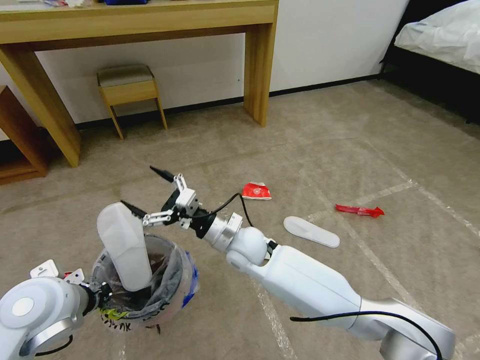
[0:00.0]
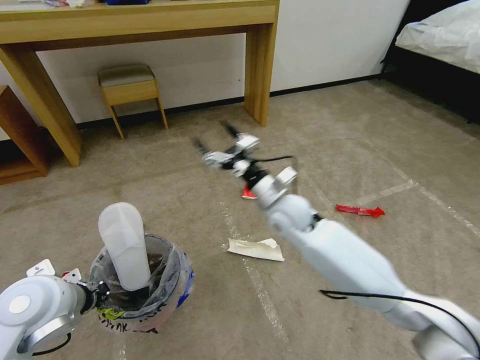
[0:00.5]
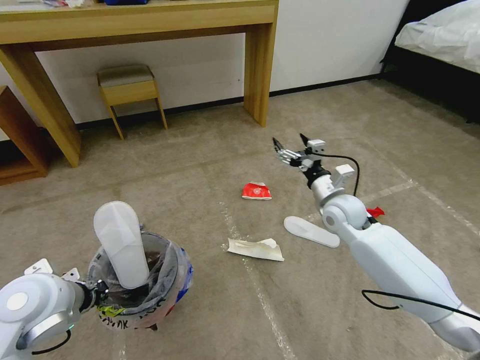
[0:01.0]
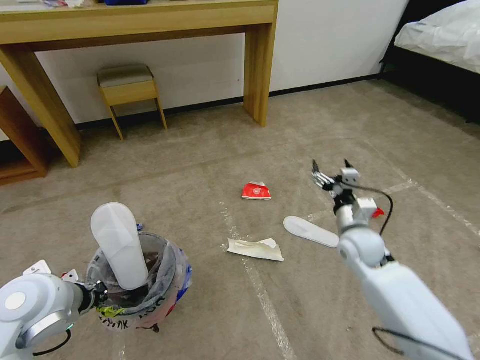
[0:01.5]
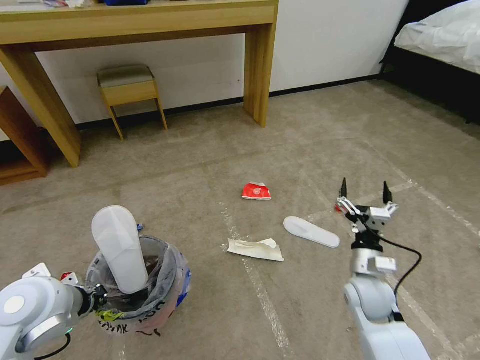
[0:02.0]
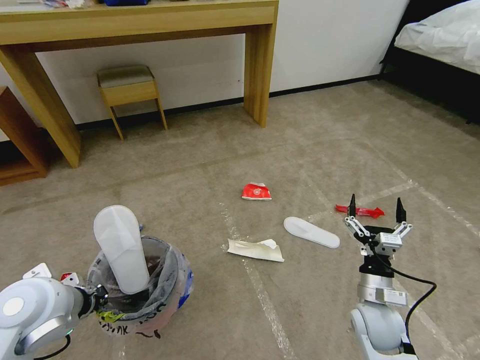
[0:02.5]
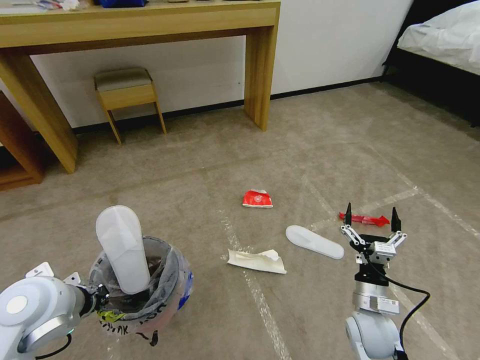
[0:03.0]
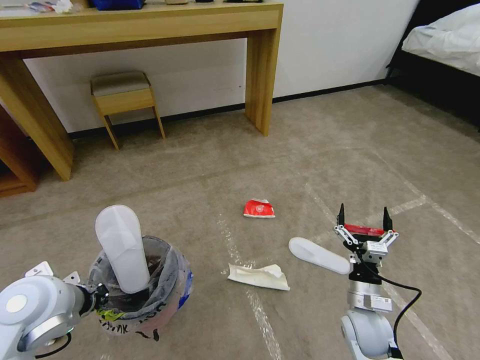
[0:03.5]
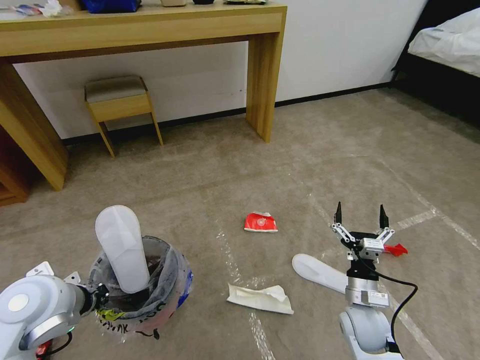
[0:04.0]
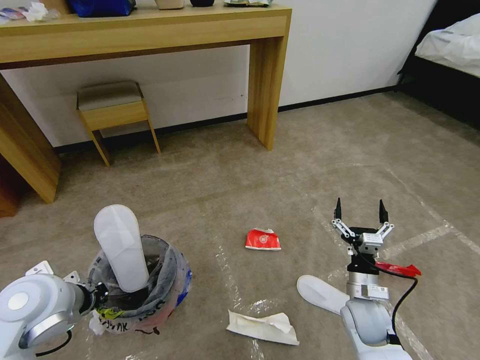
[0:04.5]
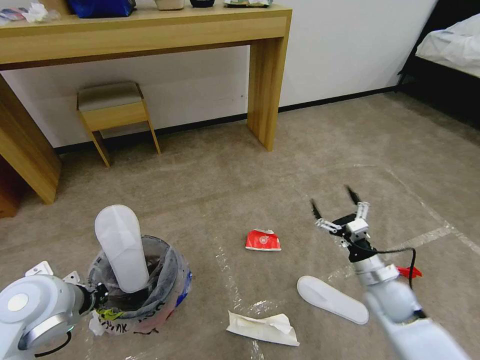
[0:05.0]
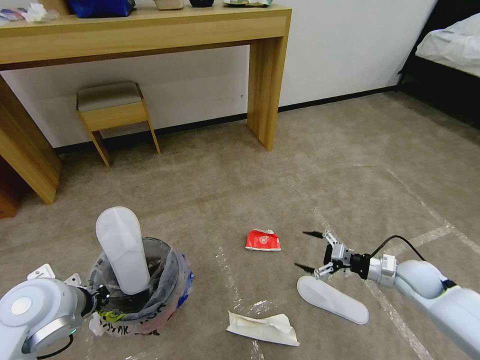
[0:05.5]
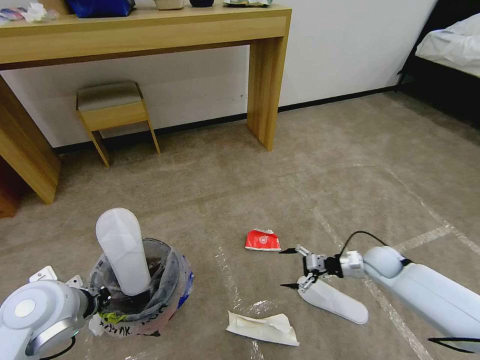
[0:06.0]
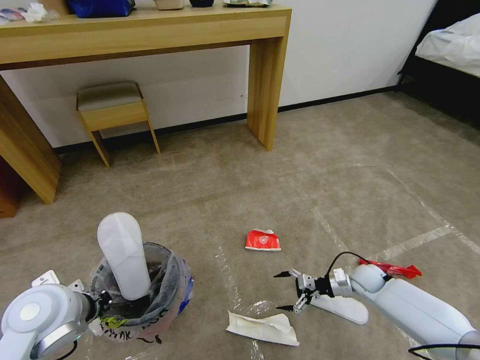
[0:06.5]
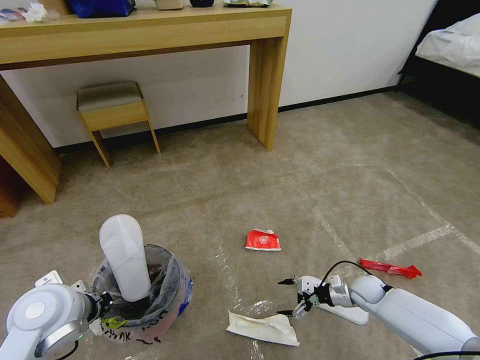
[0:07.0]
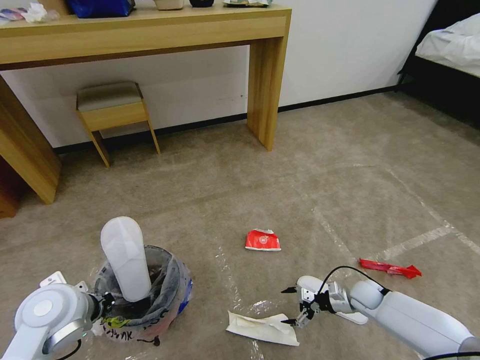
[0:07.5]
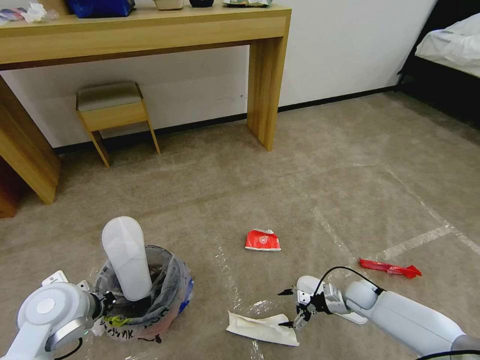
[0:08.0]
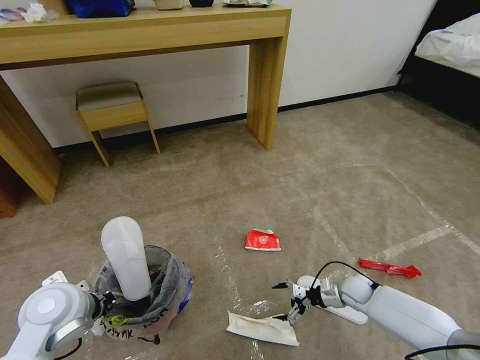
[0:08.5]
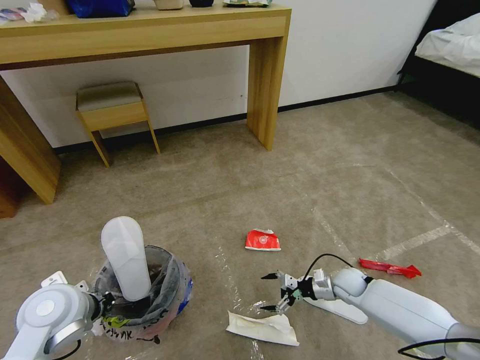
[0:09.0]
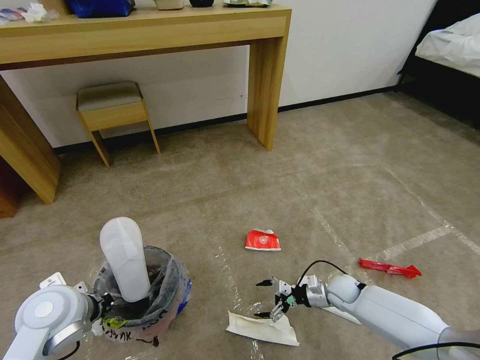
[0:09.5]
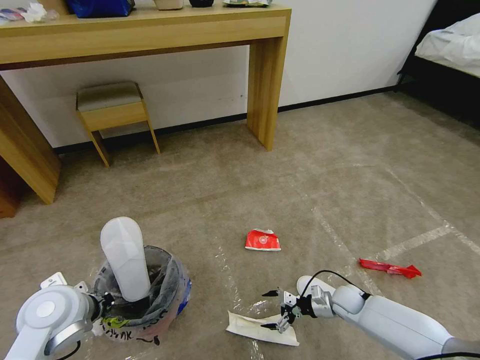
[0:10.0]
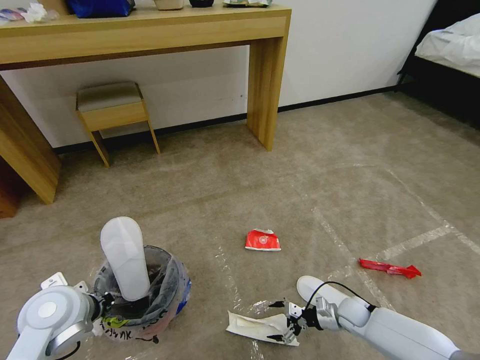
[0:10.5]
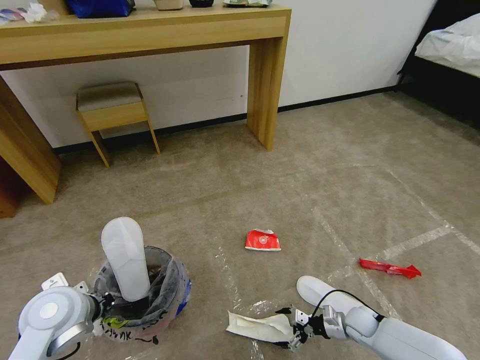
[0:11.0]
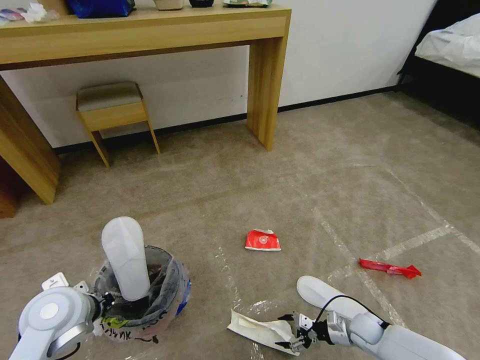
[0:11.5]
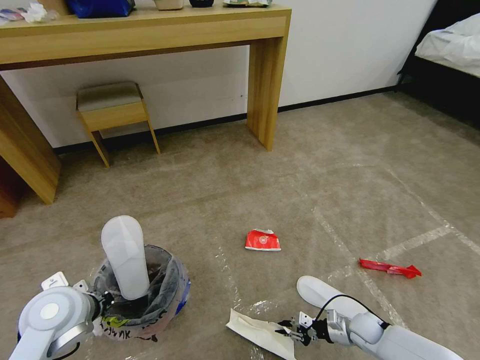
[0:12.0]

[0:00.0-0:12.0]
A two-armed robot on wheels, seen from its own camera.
Task of the whole recording: Pick up the trash bin and place the garbage on the floor into it.
0.0 to 2.0 s: The right gripper shifts roughly 30 cm to the right.
2.0 to 4.0 s: The right gripper ends up about 5 cm from where it was.
4.0 to 6.0 s: The right gripper travels forward and to the right by roughly 20 cm.
6.0 to 8.0 s: The right gripper heads downward, covering some 10 cm.
10.0 to 12.0 s: The right gripper is displaced backward by roughly 5 cm, and closes its fingers.

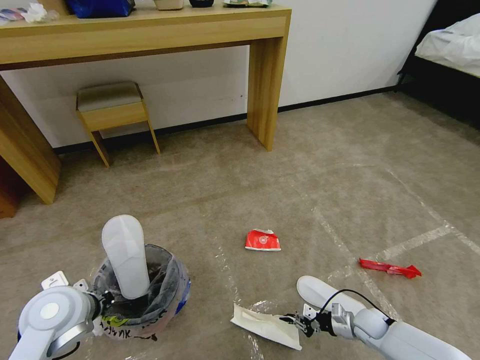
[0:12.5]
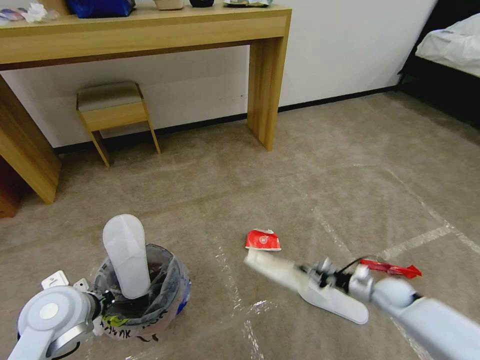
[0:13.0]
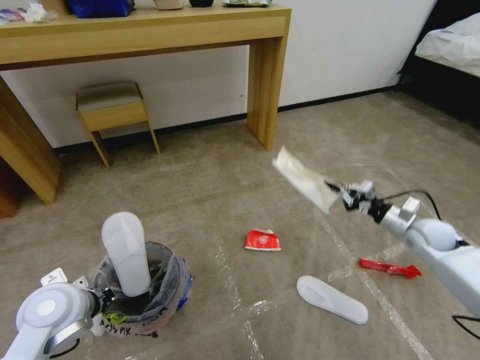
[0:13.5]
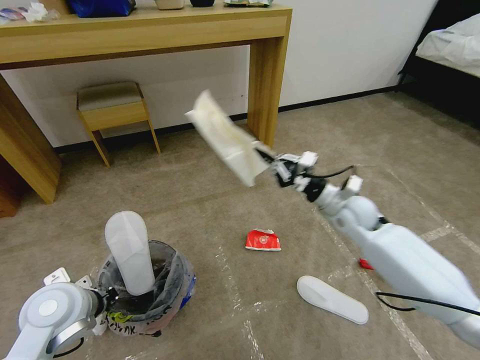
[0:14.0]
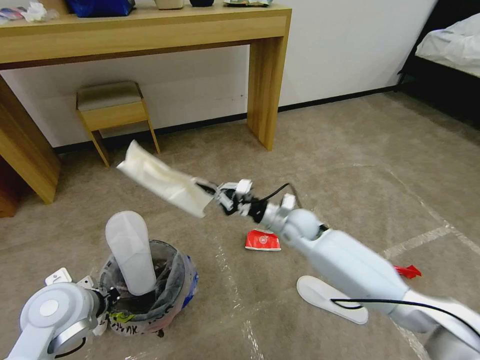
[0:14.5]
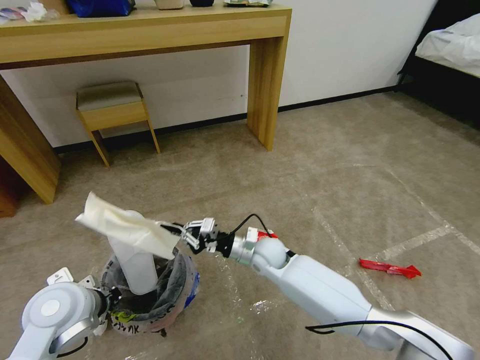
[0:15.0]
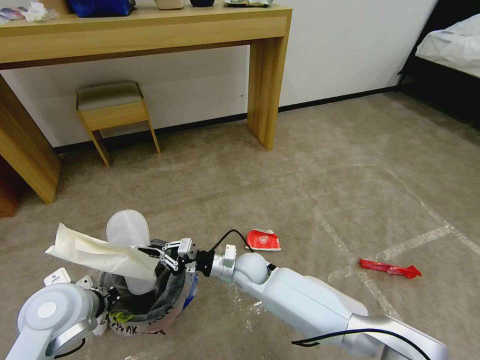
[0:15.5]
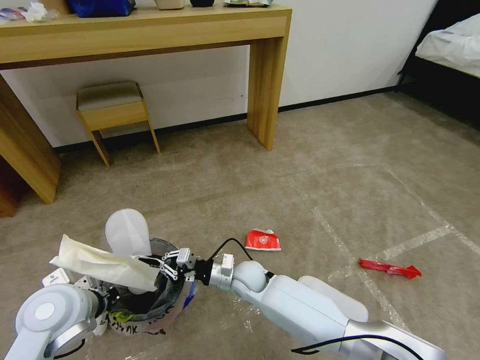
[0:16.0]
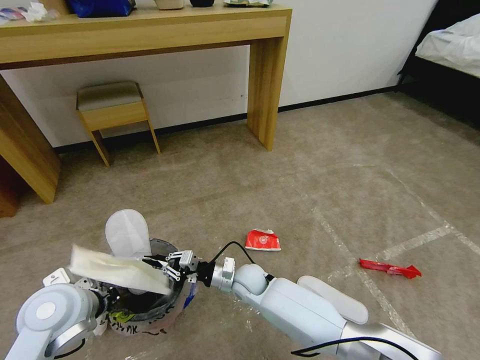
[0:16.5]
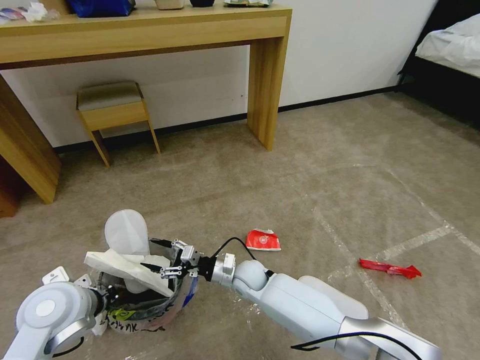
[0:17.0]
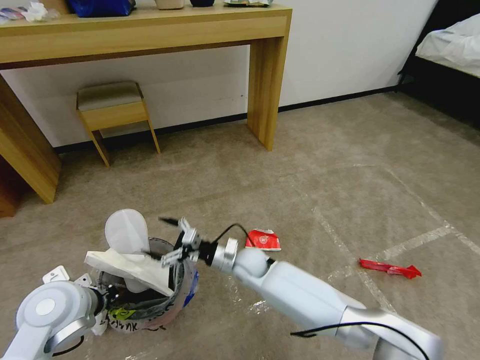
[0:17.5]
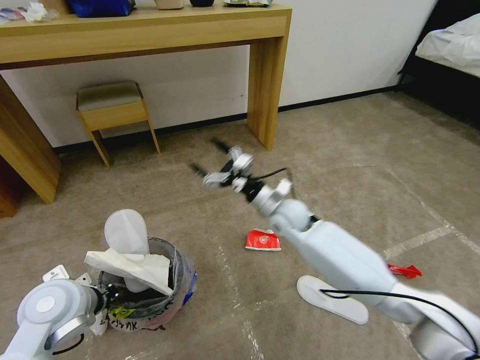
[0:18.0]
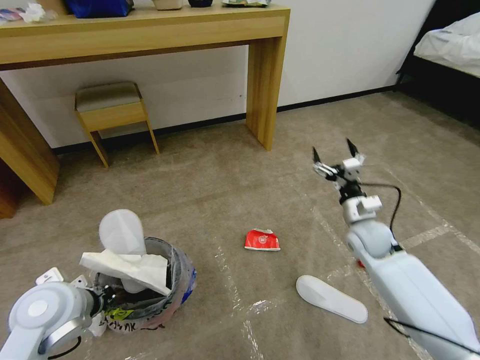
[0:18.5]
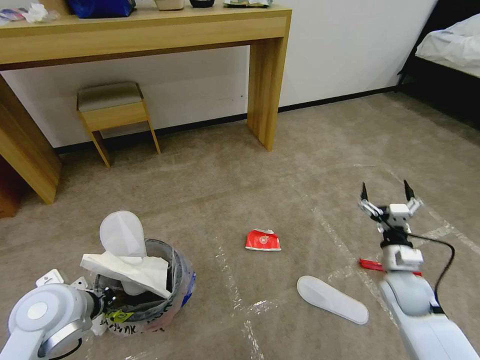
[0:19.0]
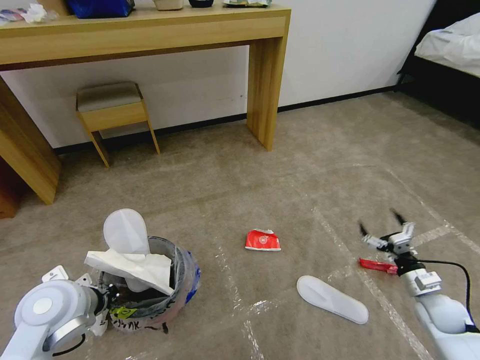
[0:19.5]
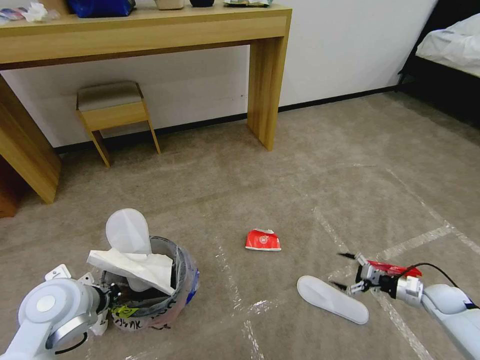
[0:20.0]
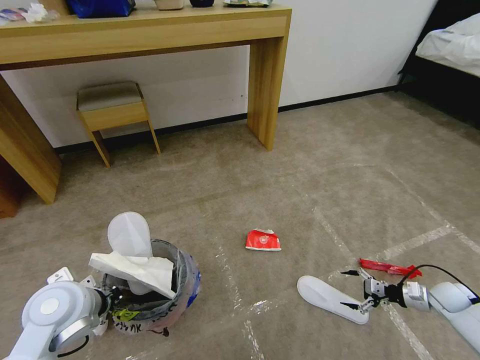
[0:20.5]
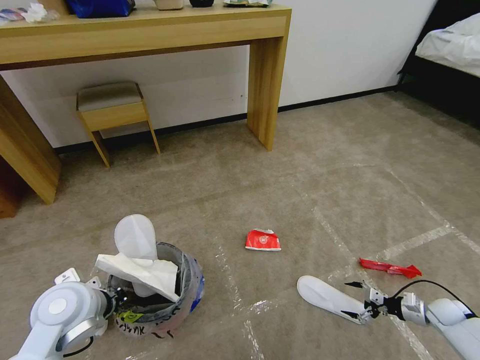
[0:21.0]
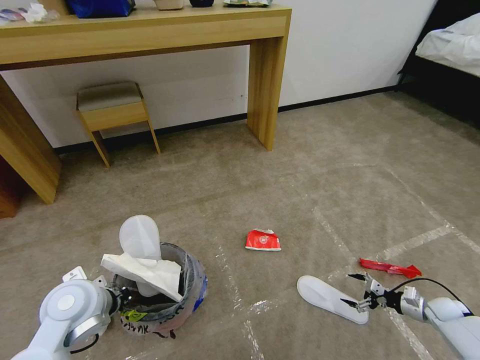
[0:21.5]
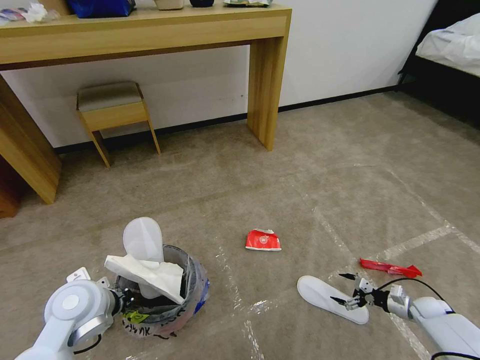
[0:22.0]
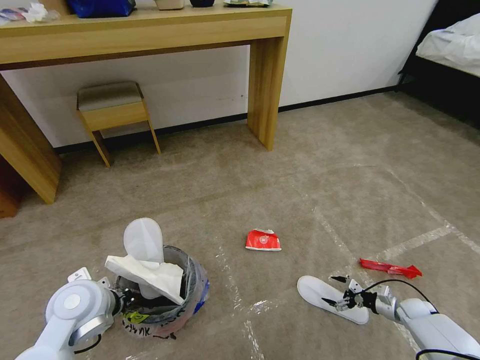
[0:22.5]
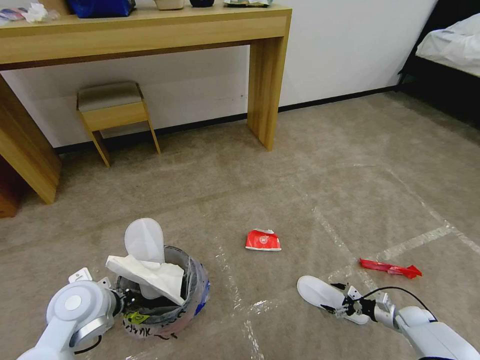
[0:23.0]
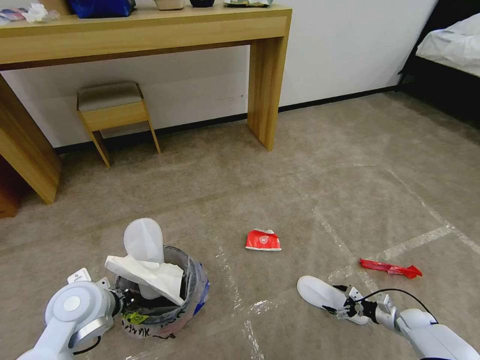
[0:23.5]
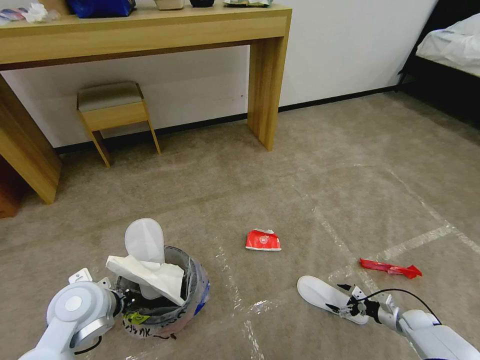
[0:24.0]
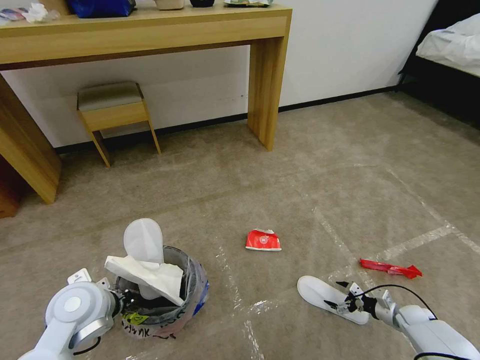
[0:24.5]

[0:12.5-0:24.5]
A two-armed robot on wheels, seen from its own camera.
Task of the whole recording: Pick up the trash bin and place the garbage on the floor into it.
12.5 to 14.5 s: The right gripper travels upward, to the left and forward by approximately 40 cm.
14.5 to 16.5 s: The right gripper heads downward, to the left and backward, covering about 20 cm.
16.5 to 18.5 s: The right gripper travels to the right and upward by about 35 cm, and opens up.
18.5 to 20.5 s: The right gripper shifts about 30 cm to the right and downward.
20.5 to 22.5 s: The right gripper heads downward, covering about 10 cm.
22.5 to 24.5 s: The grippers move only a little.

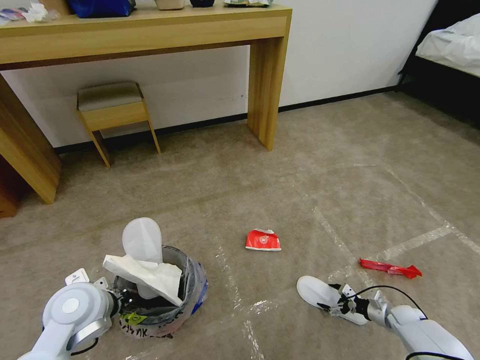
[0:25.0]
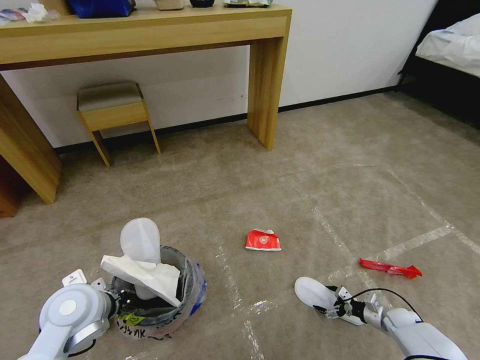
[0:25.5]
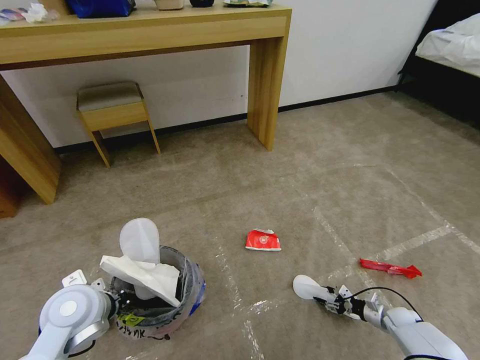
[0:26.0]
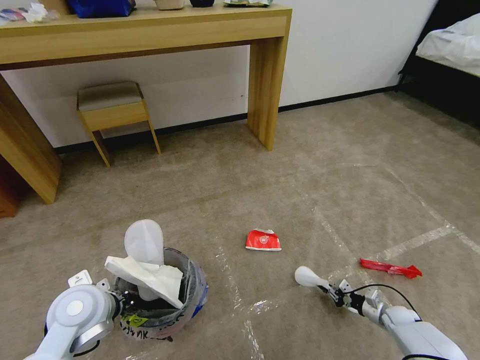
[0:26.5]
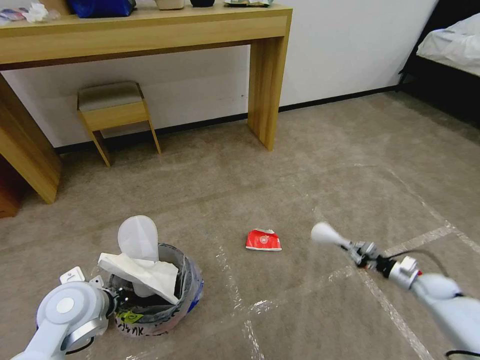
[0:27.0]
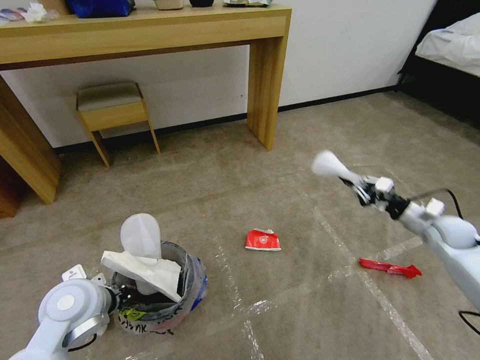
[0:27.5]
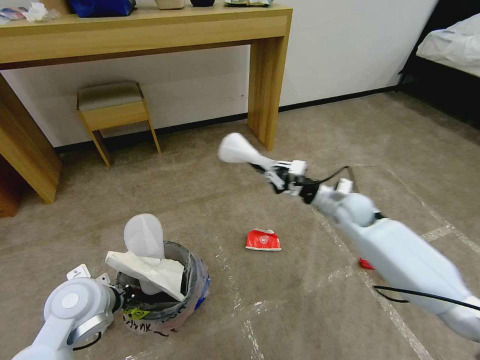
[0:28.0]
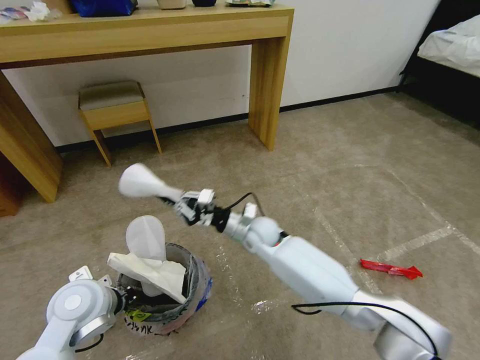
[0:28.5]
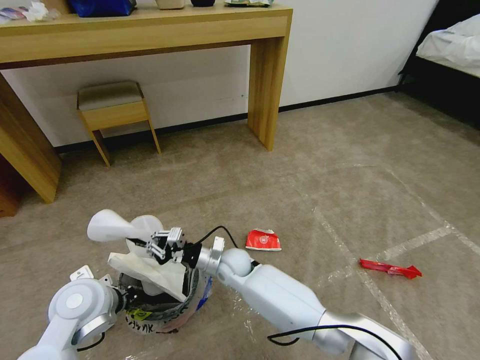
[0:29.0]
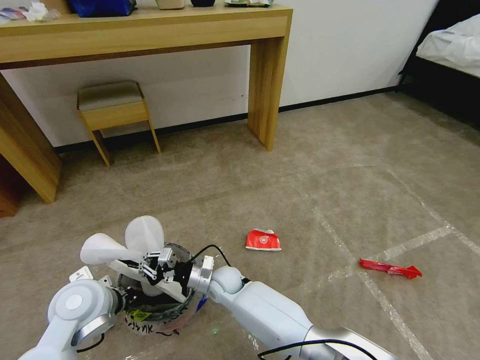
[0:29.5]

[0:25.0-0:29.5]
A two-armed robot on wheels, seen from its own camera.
Task of the whole recording: Pick up the trash bin and place the garbage on the floor into it.
25.0 to 27.0 s: The right gripper heads upward, covering roughly 15 cm, and closes up.
27.0 to 29.5 s: The right gripper shifts approximately 60 cm to the left.
